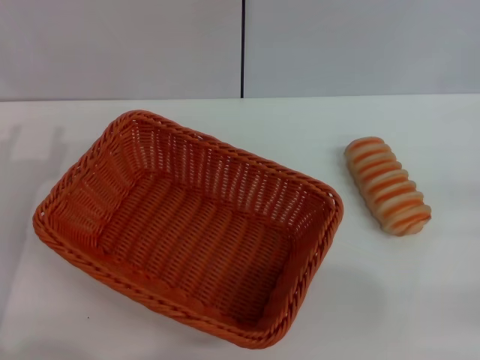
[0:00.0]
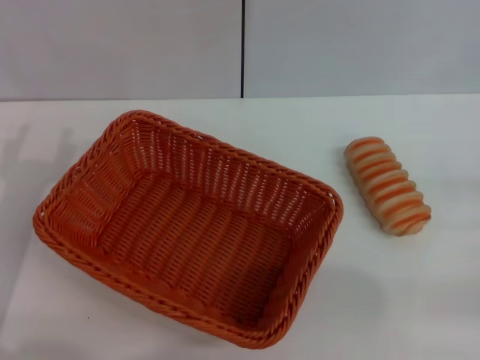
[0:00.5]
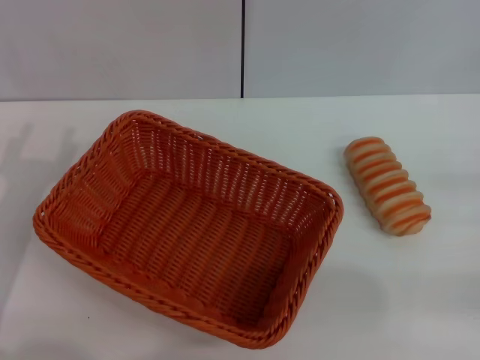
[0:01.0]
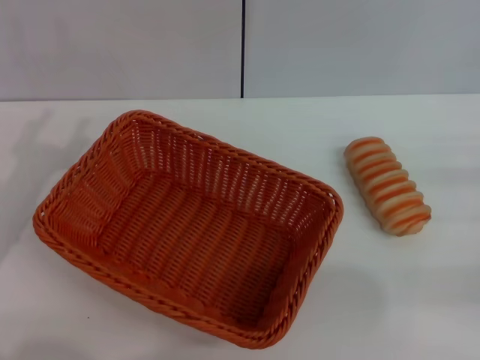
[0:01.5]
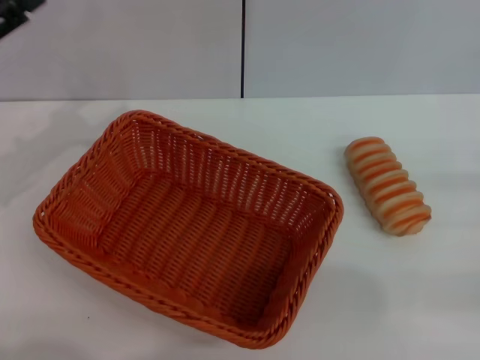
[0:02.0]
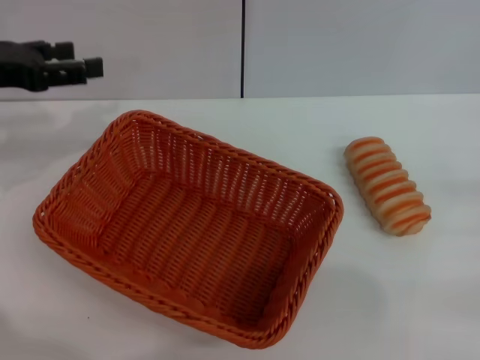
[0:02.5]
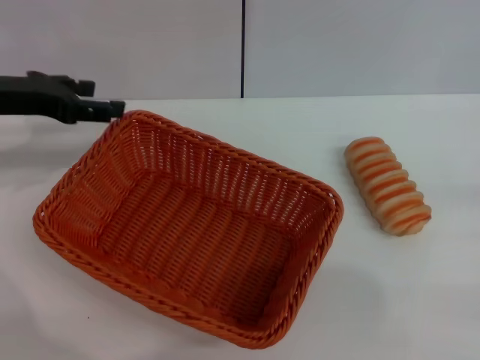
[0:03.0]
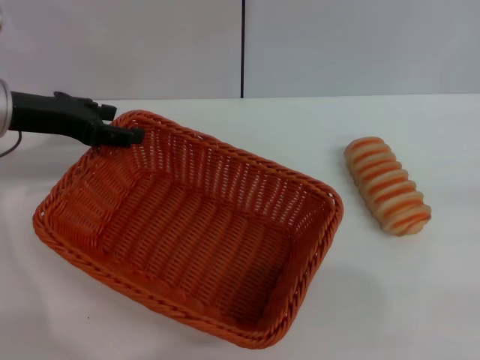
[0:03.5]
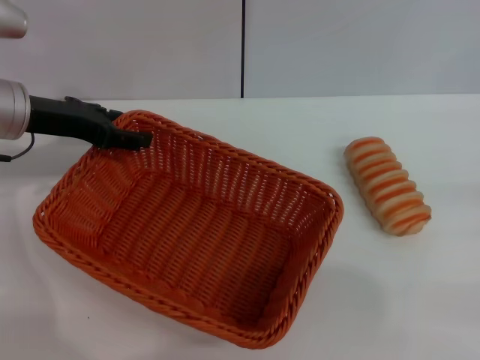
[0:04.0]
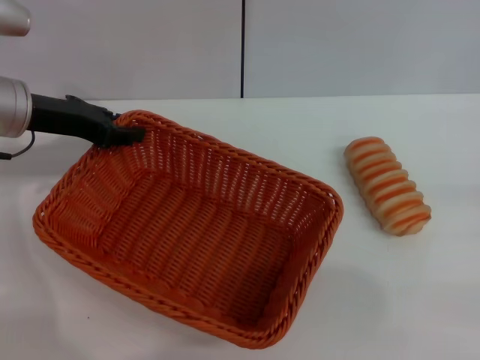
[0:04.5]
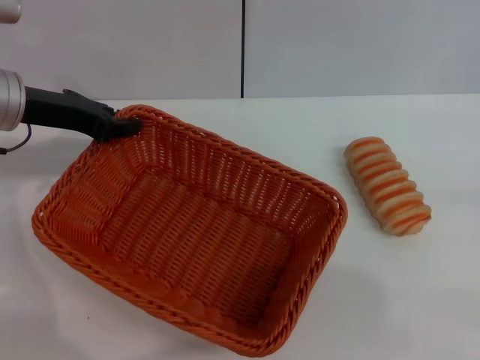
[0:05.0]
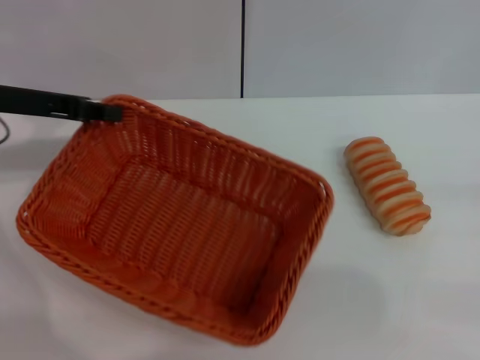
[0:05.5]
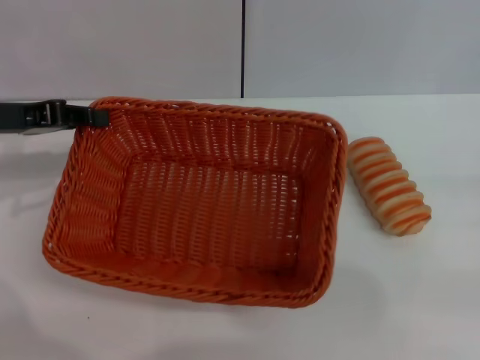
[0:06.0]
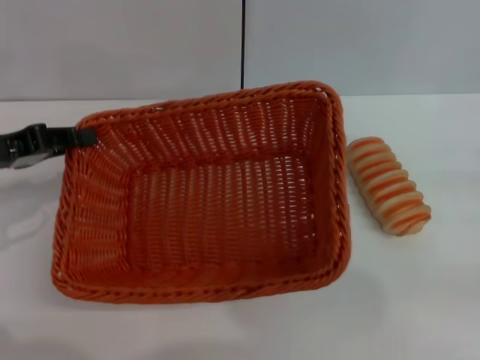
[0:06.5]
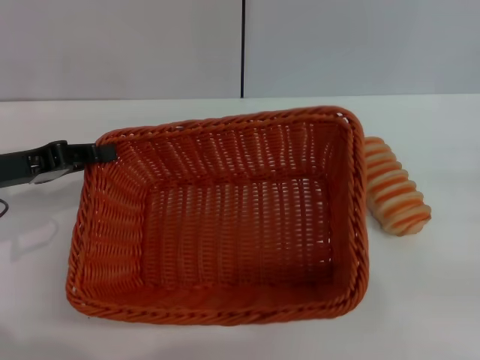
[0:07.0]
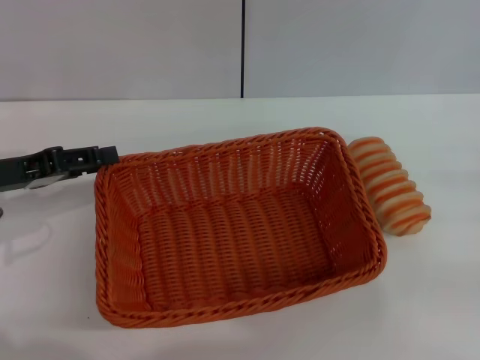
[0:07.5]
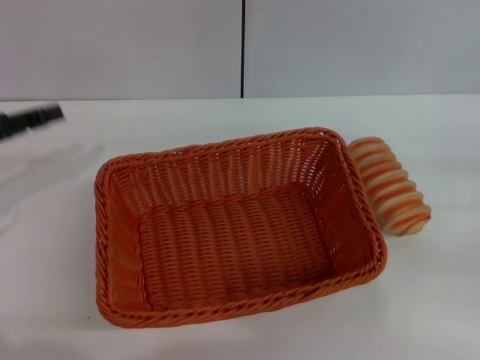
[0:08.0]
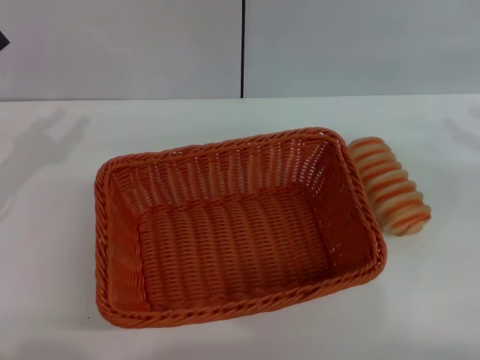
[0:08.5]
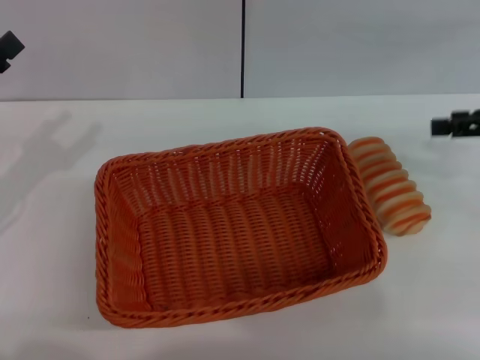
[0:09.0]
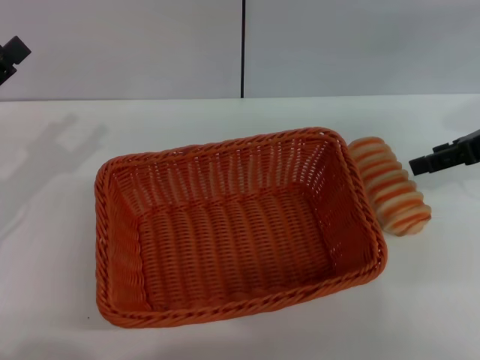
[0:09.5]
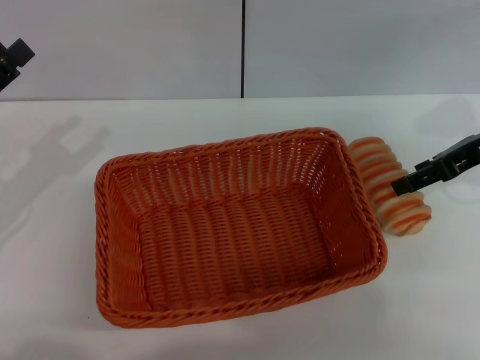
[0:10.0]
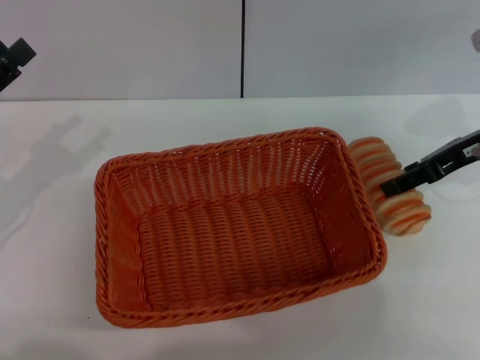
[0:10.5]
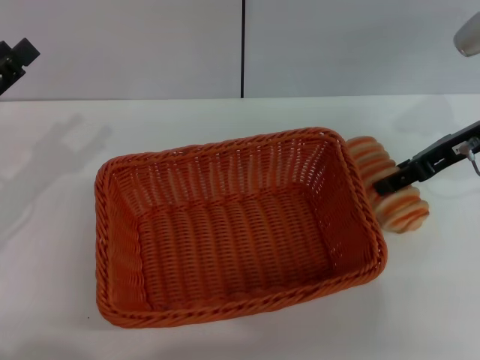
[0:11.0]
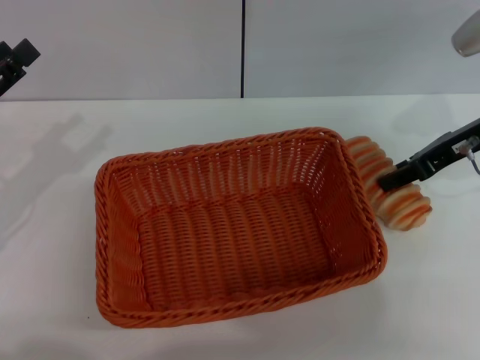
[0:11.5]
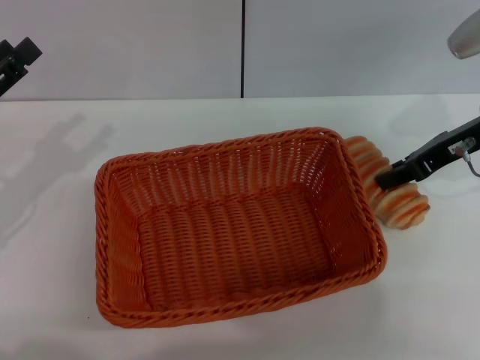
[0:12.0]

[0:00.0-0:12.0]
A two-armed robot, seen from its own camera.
Step, 0:00.0 to 0:05.0: Pick up the light basket with the left gripper.
Step, 0:05.5 to 0:07.5: Place the light basket in the center of view with the left gripper.
0:02.0 to 0:04.0: The left gripper heads to the right and forward, covering roughly 10 cm.
0:04.0 to 0:06.0: The left gripper shifts by approximately 5 cm, and closes its fingers.
0:06.0 to 0:08.0: The left gripper goes some 5 cm backward, and opens.
0:08.0 to 0:10.0: The right gripper moves forward, to the left and upward, some 20 cm. Meanwhile the left gripper opens up.
0:10.0 to 0:12.0: The right gripper closes its fingers.

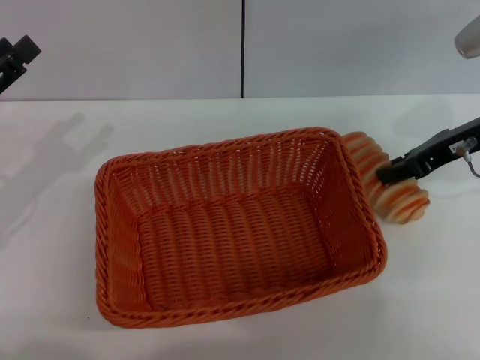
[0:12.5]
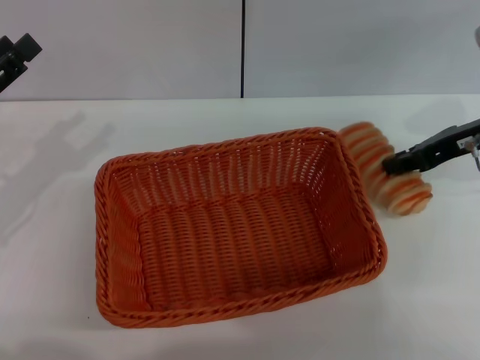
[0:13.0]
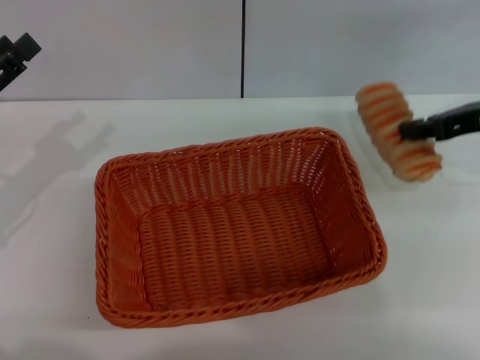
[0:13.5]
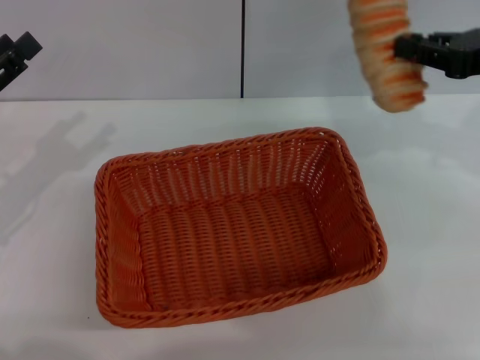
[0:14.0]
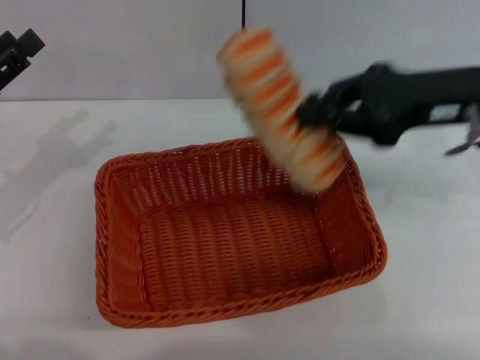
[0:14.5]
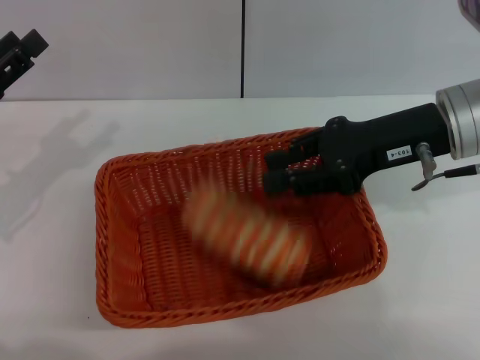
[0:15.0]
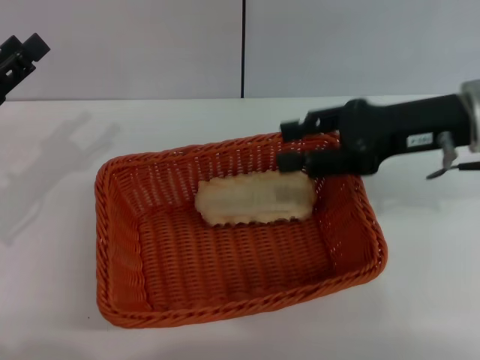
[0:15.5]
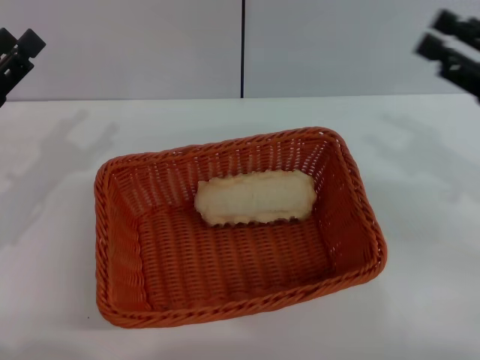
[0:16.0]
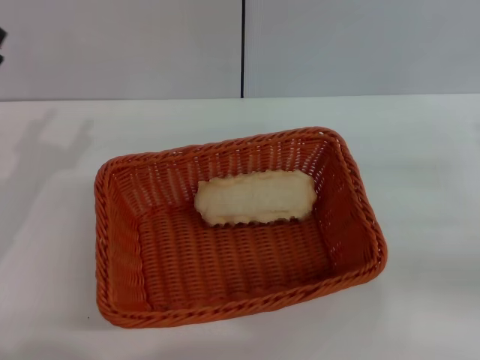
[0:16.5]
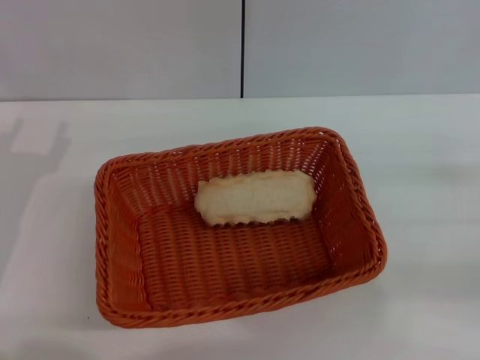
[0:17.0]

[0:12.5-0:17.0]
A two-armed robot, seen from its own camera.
Step, 0:14.0 to 0:15.5: Place the long bread into the light basket with the right gripper.
0:12.5 to 0:14.5: The right gripper goes about 10 cm upward and backward.
0:14.5 to 0:17.0: The right gripper travels to the right, downward and backward by approximately 20 cm, and opens up, while the left gripper shifts by roughly 5 cm.

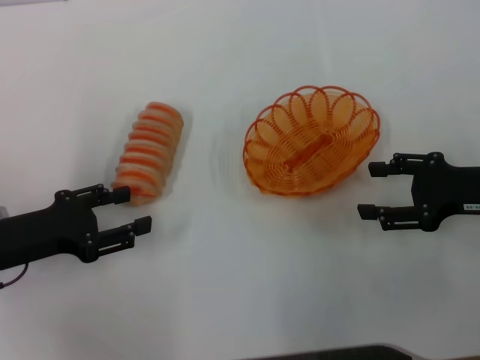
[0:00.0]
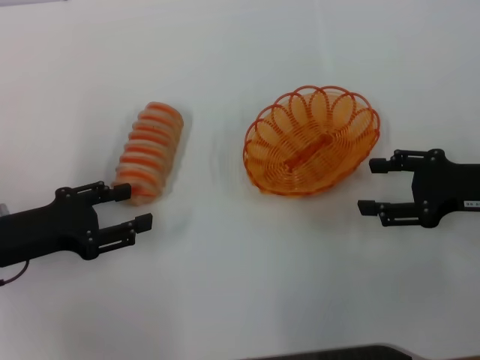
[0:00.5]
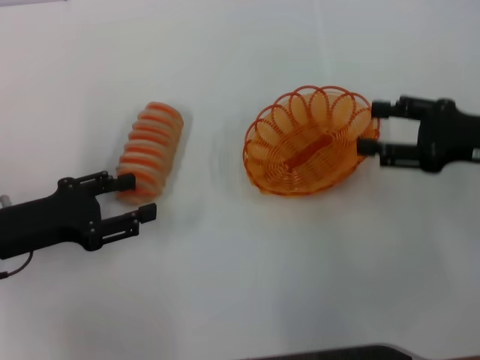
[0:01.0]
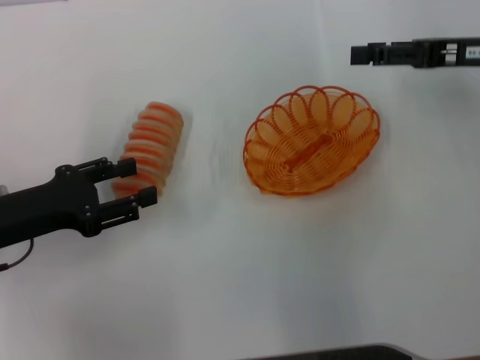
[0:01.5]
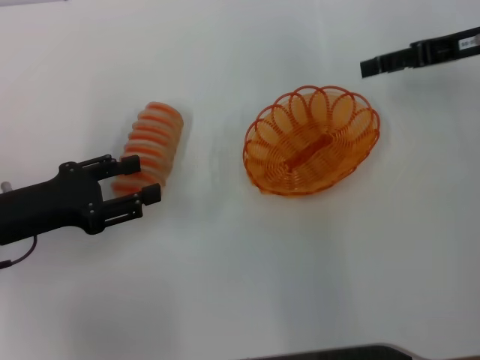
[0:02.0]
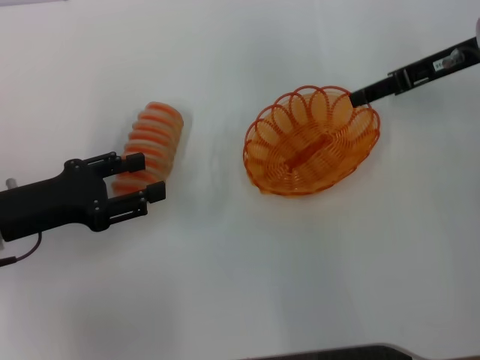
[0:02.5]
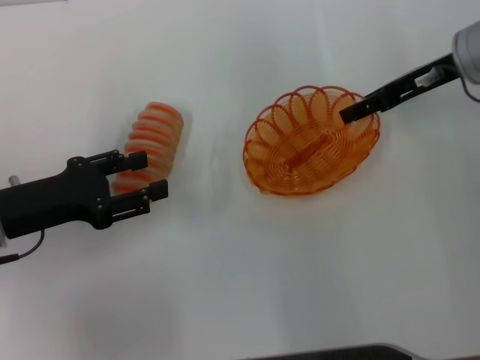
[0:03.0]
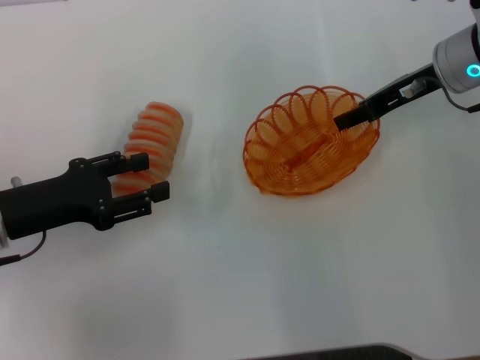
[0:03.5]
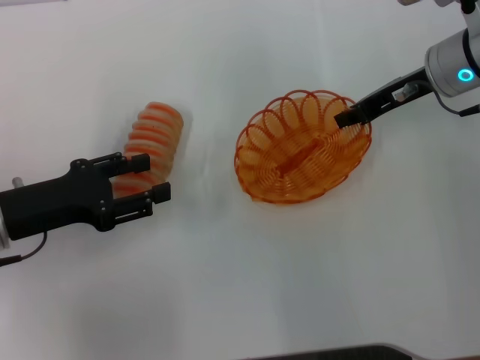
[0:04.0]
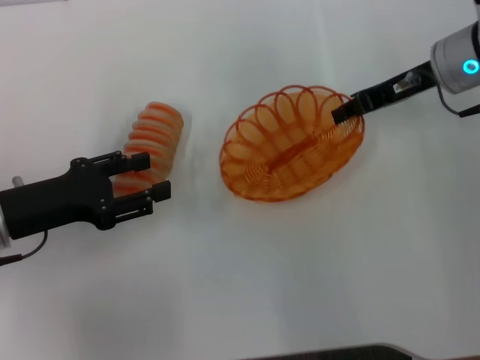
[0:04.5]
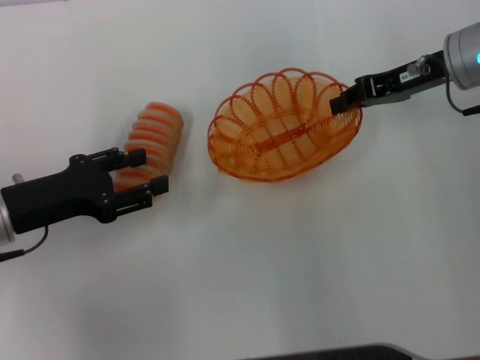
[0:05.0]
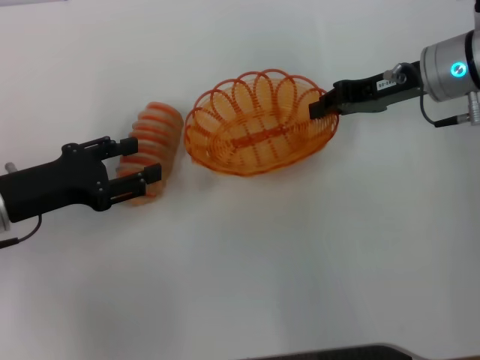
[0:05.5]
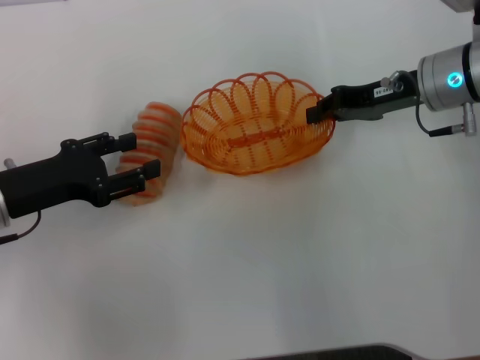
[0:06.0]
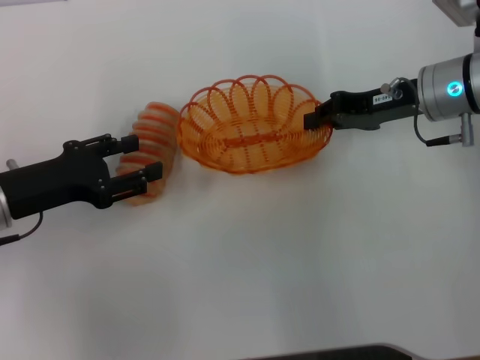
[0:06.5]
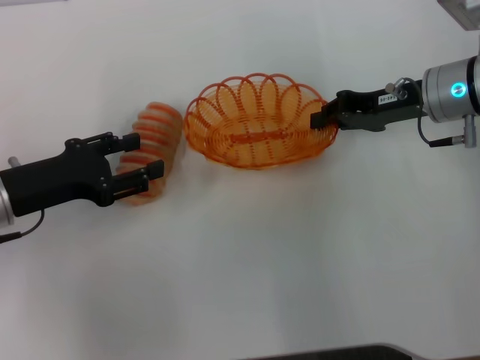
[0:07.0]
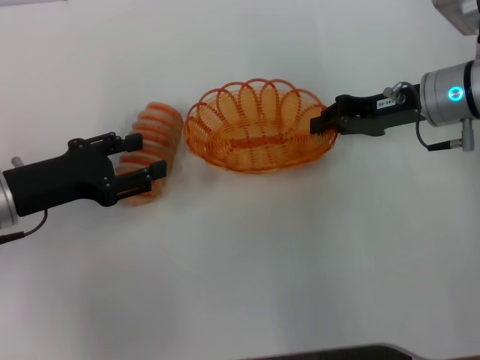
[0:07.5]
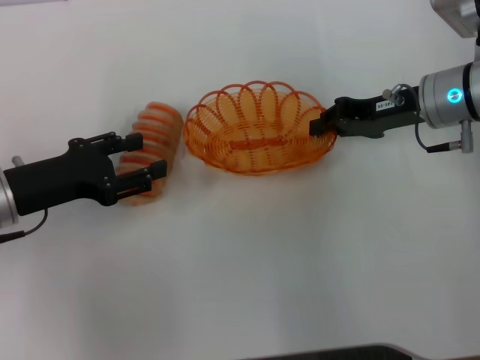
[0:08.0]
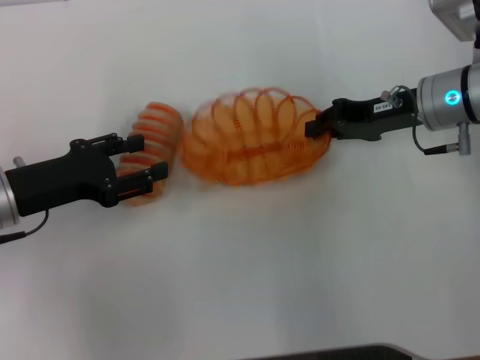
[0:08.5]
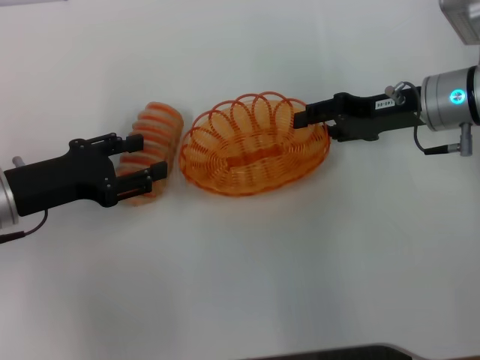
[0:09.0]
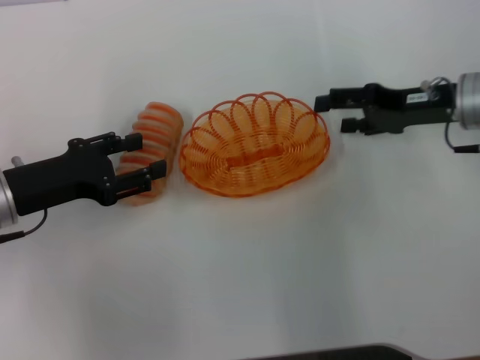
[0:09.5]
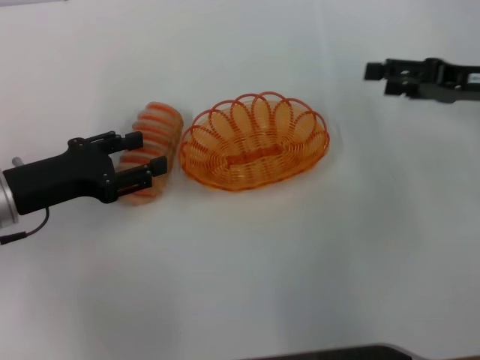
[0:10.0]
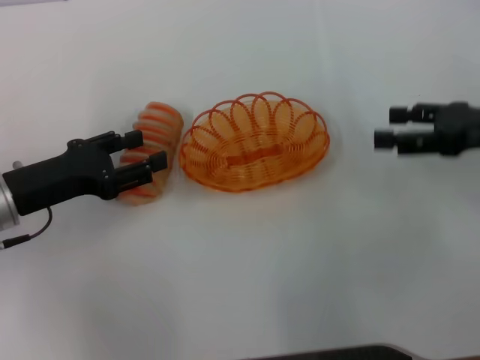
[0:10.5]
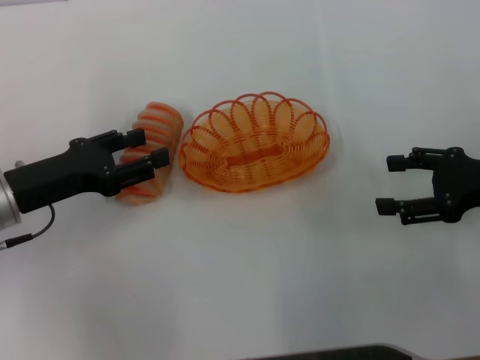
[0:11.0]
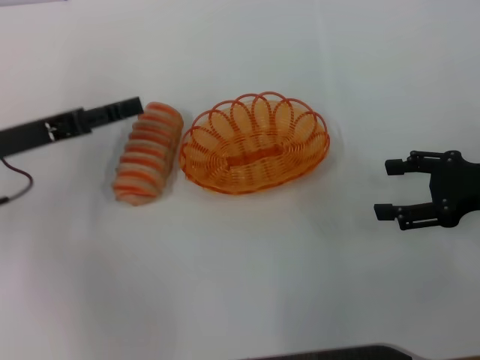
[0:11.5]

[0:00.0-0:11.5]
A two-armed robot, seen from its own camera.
Step, 0:00.0 to 0:04.5: Pick up the basket with the right gripper.
Step, 0:05.0 to 0:09.5: Place the basket in the center of view with the right gripper.
0:00.0 to 0:02.0: The right gripper goes roughly 15 cm forward and upward.
0:02.0 to 0:04.0: The right gripper is displaced to the left by about 5 cm, and closes its fingers.
0:06.0 to 0:07.5: There are only small adjustments of the grippers.
0:07.5 to 0:09.5: The right gripper opens up.
0:09.5 to 0:11.5: The right gripper is displaced backward and to the right by approximately 10 cm.
